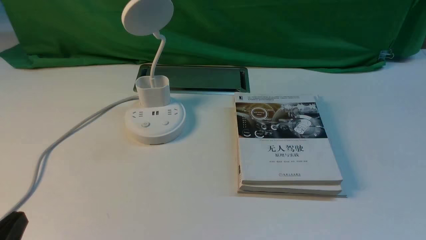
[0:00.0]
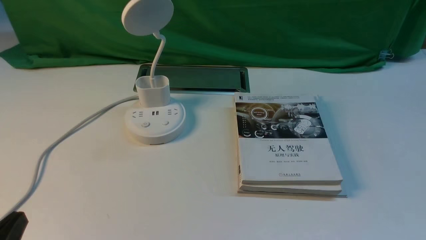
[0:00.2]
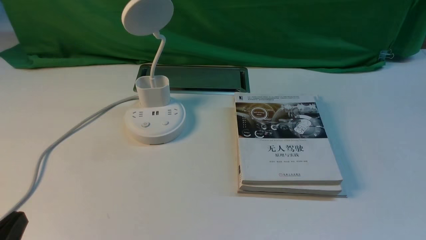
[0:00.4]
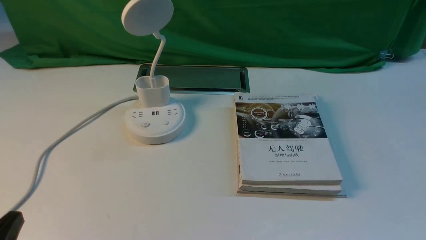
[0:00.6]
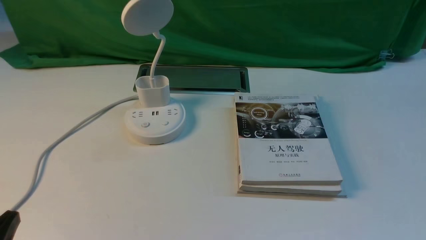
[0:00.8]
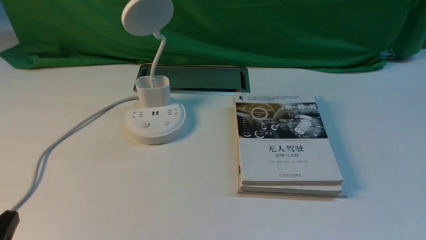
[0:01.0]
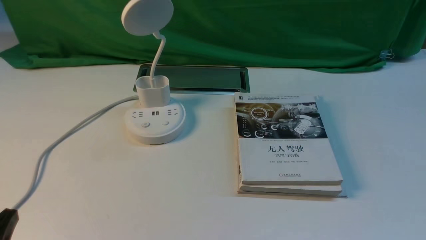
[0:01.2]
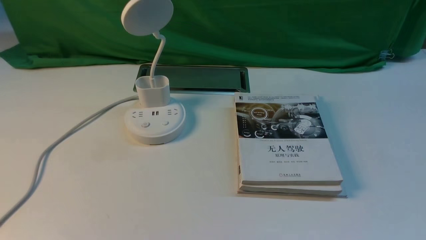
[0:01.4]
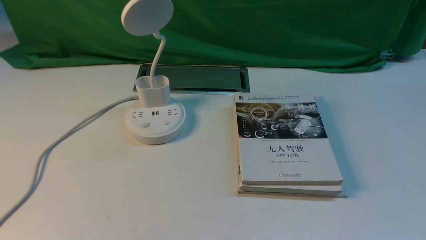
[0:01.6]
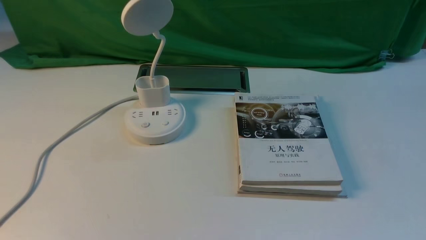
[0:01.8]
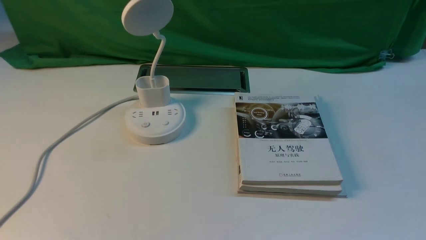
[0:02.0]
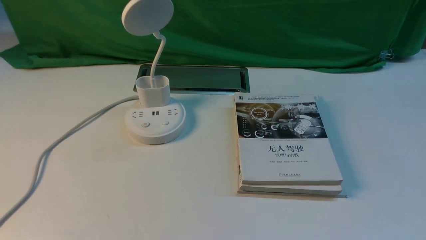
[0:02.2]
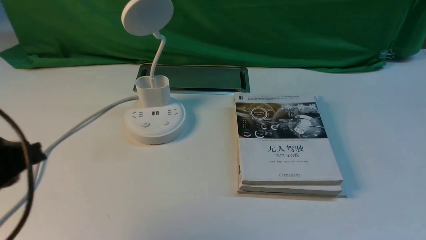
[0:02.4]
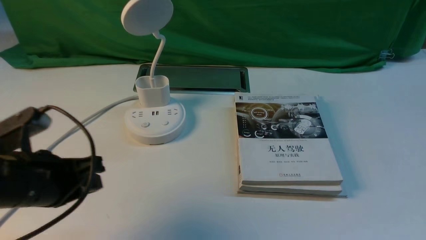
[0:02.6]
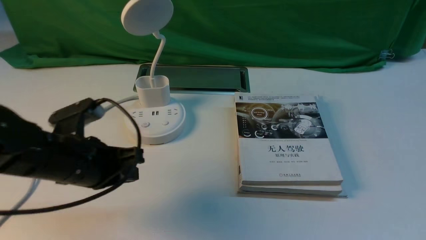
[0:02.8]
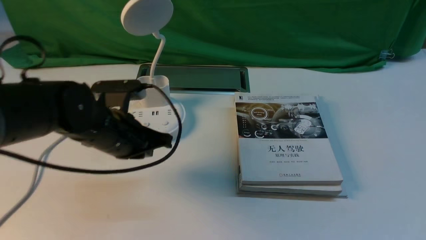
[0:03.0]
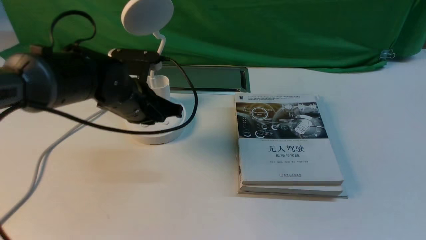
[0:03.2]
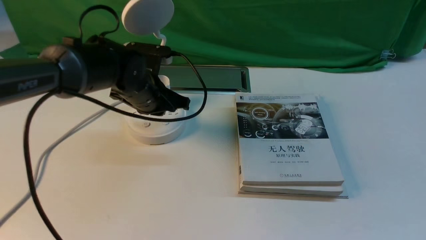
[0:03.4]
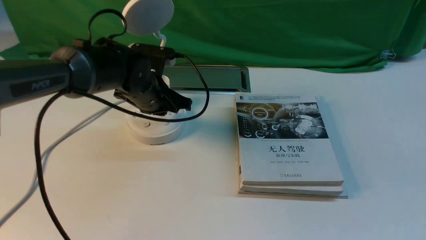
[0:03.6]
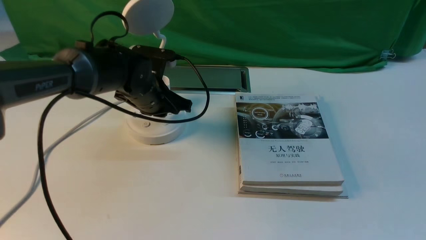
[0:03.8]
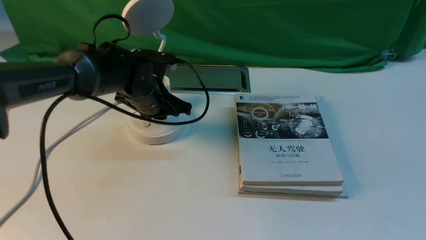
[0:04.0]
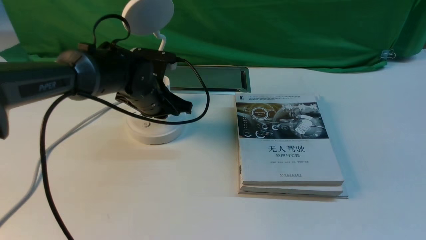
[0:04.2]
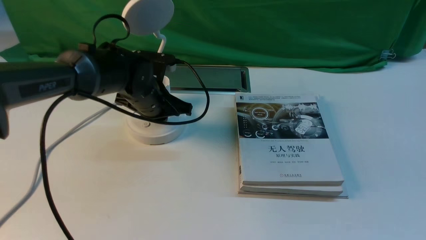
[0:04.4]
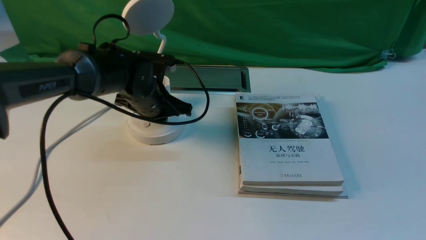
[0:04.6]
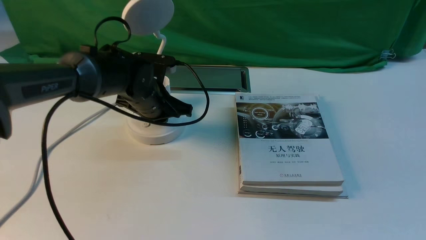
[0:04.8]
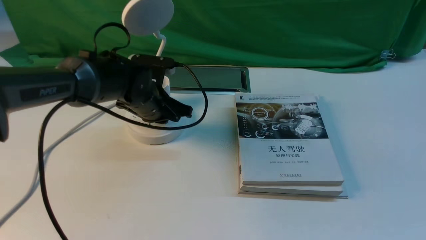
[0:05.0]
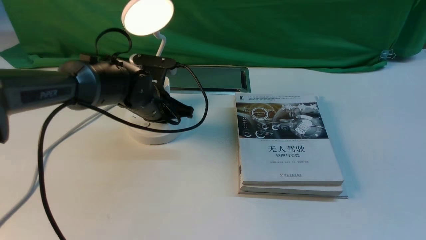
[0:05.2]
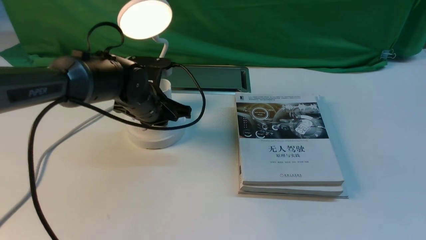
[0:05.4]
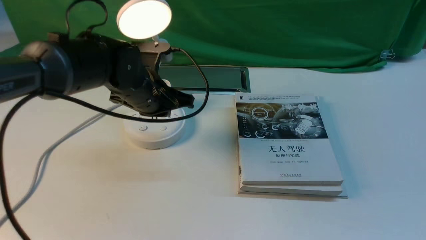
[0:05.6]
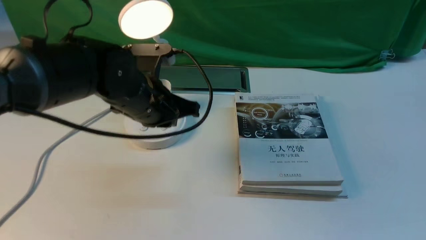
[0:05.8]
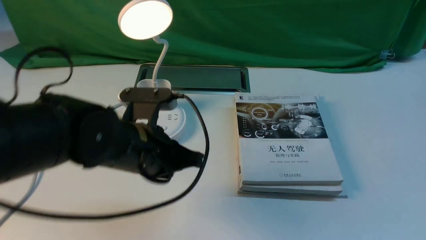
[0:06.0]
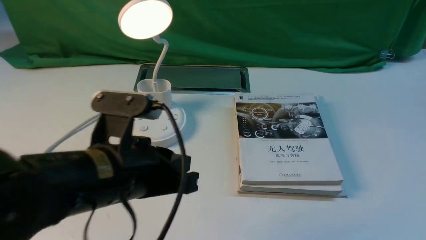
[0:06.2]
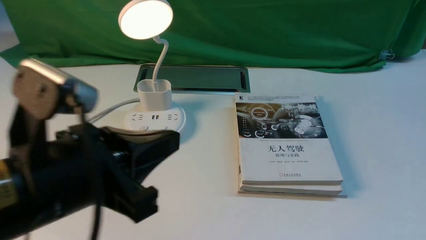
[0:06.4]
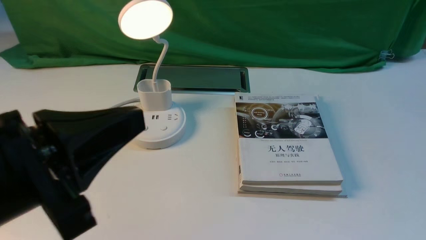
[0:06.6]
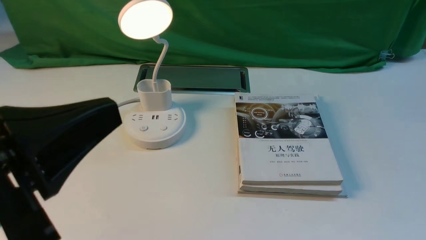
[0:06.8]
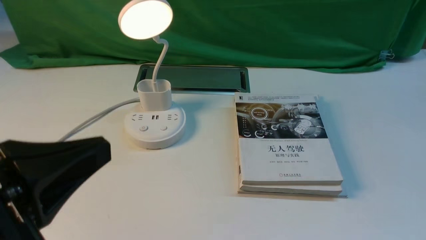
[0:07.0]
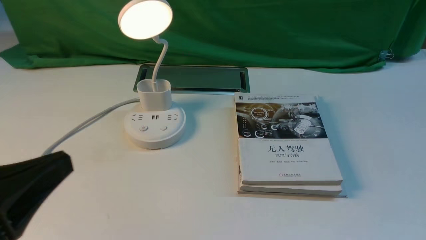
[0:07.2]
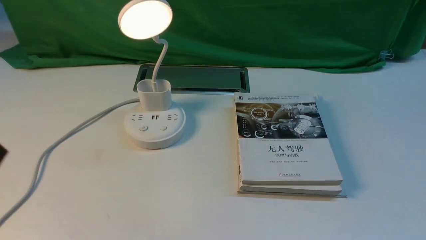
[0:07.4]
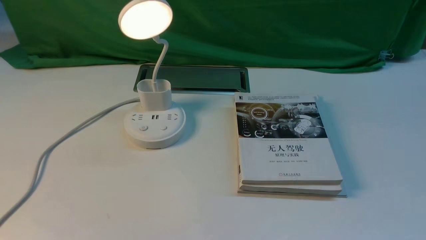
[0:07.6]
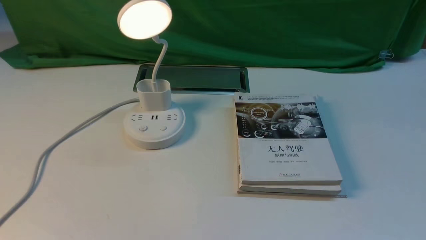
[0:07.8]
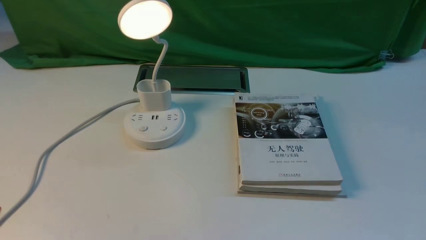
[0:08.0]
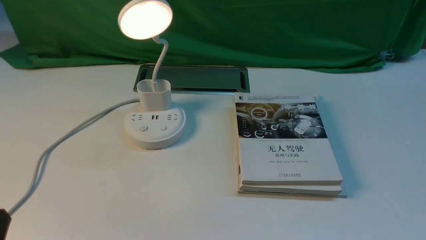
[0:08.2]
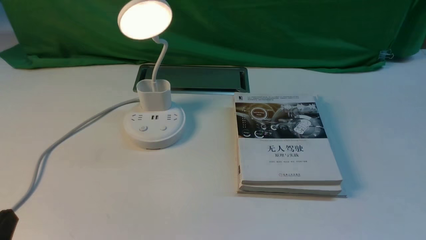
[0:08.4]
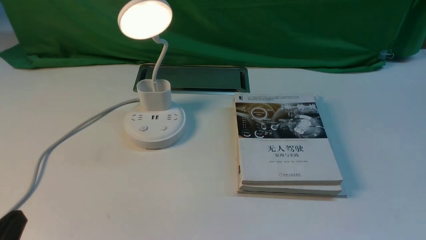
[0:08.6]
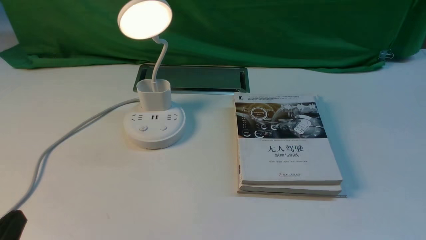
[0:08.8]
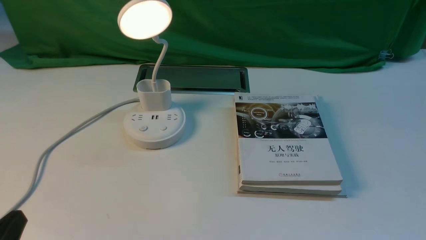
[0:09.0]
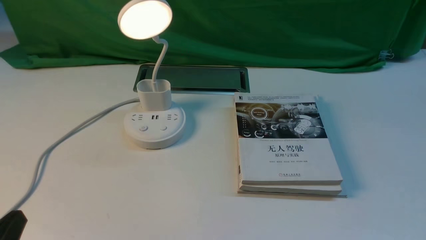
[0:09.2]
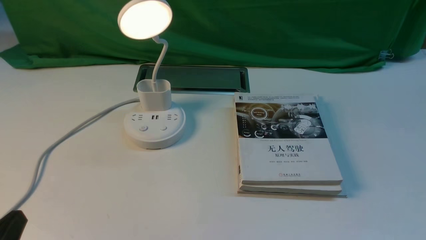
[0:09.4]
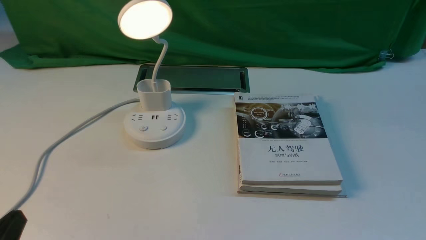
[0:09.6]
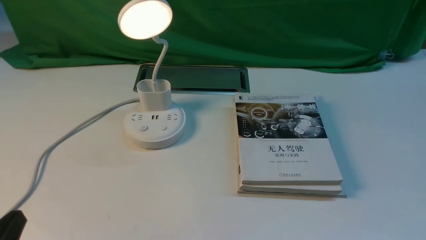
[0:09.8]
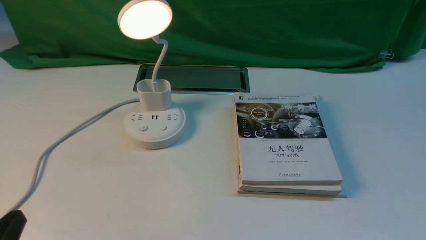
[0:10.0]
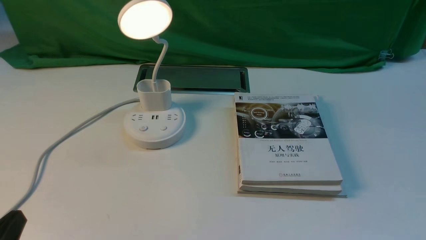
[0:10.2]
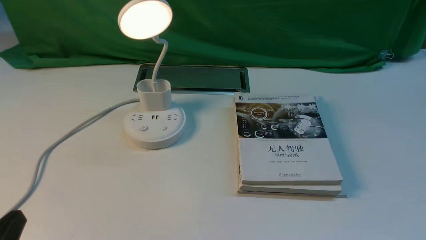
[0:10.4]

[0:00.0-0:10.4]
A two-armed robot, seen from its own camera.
Step, 0:00.0 to 0:05.8: use the left arm to press the button switch on the lamp holder.
0:01.4 to 0:03.0: The left gripper shifts some 30 cm forward and to the right, and closes its fingers.
0:03.0 to 0:04.4: The left gripper heads forward, covering some 10 cm.
0:04.4 to 0:06.0: The left gripper goes some 20 cm backward and upward.
0:06.0 to 0:07.4: The left gripper goes about 25 cm backward and to the left.
0:07.4 to 0:09.0: The left gripper shifts some 10 cm downward.
0:09.0 to 0:10.4: The two grippers keep their place.

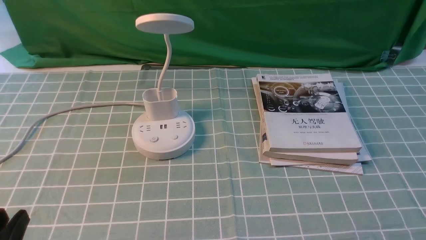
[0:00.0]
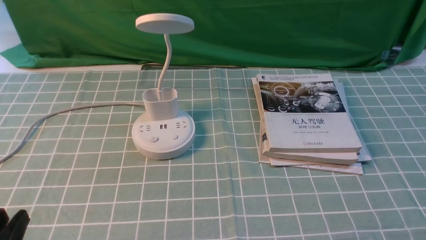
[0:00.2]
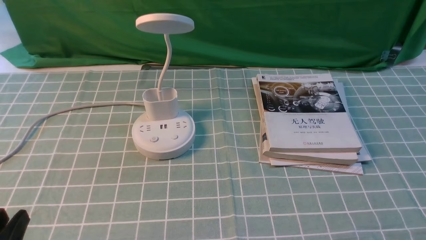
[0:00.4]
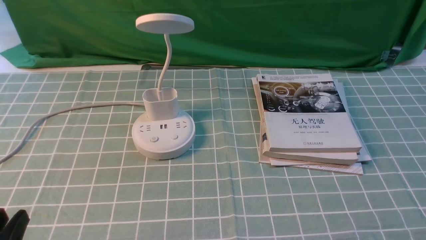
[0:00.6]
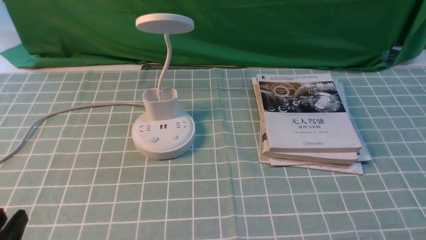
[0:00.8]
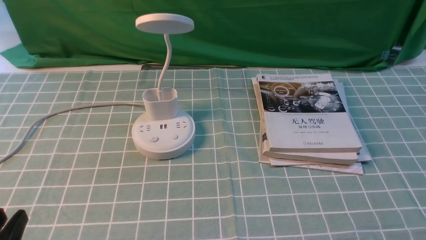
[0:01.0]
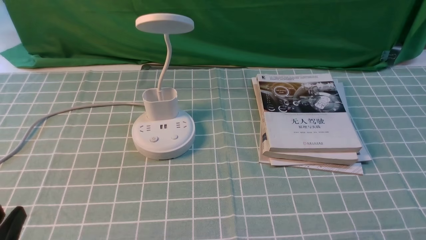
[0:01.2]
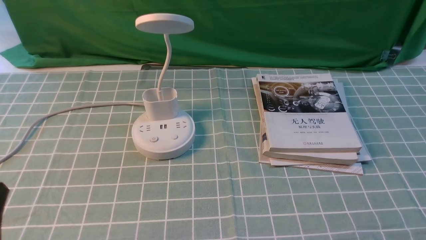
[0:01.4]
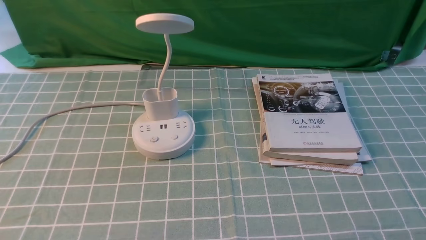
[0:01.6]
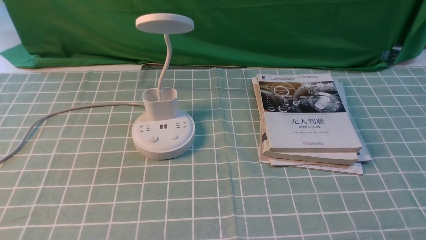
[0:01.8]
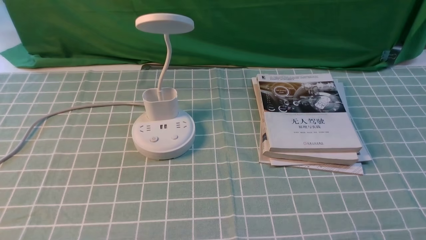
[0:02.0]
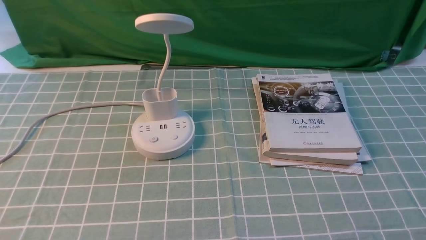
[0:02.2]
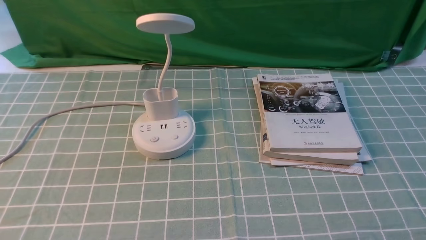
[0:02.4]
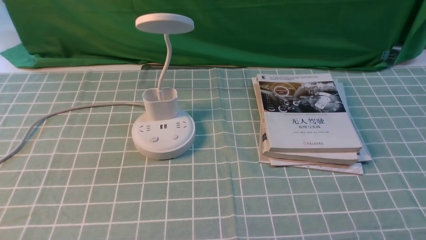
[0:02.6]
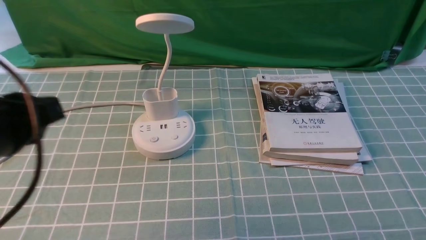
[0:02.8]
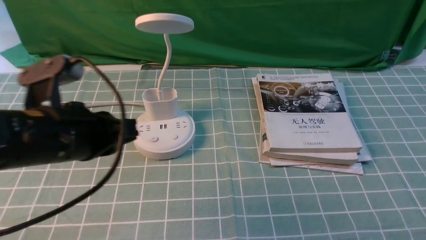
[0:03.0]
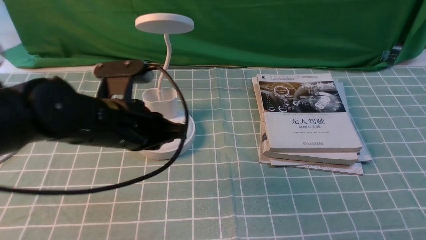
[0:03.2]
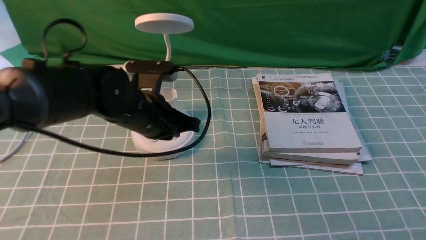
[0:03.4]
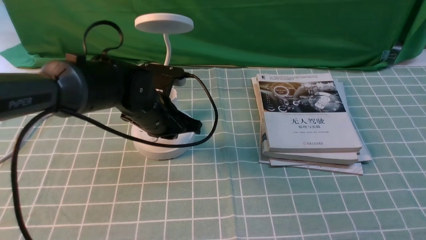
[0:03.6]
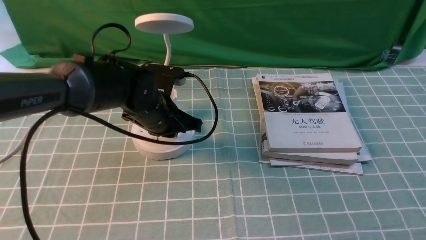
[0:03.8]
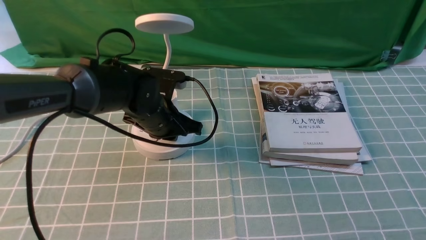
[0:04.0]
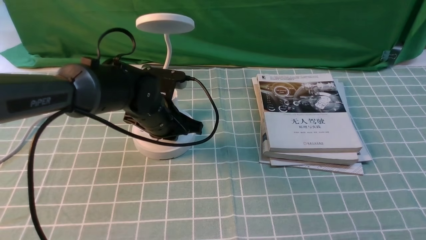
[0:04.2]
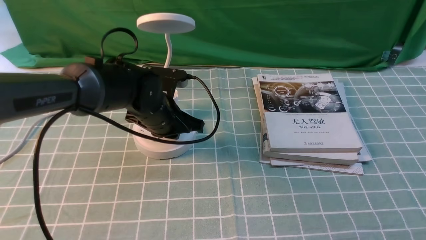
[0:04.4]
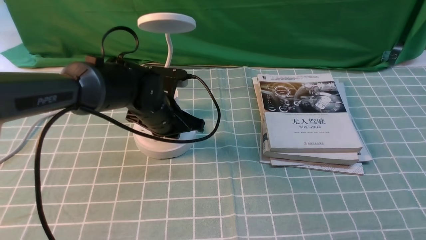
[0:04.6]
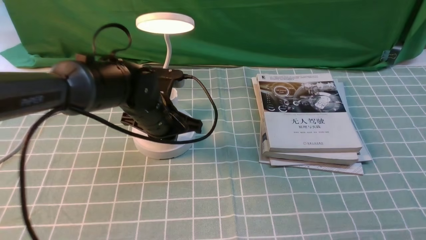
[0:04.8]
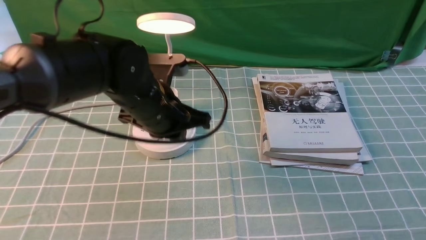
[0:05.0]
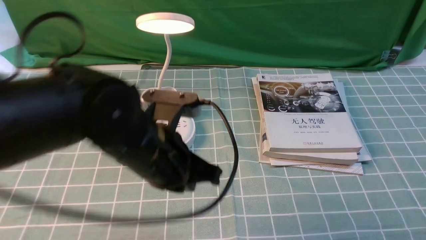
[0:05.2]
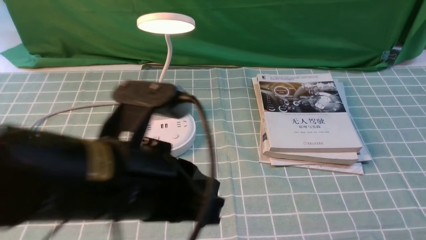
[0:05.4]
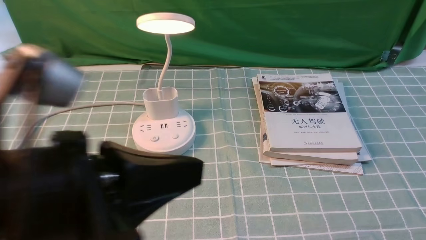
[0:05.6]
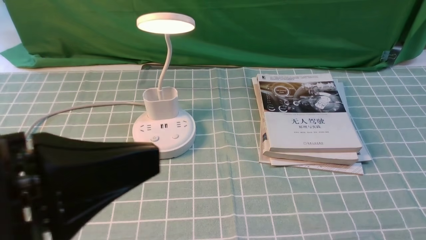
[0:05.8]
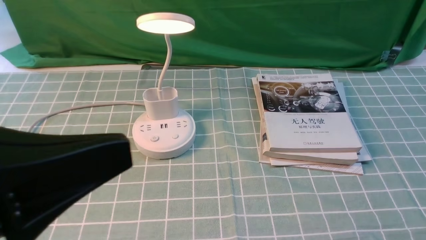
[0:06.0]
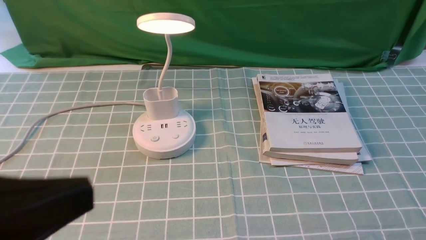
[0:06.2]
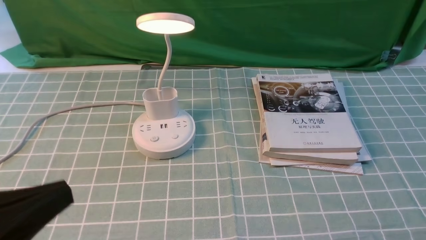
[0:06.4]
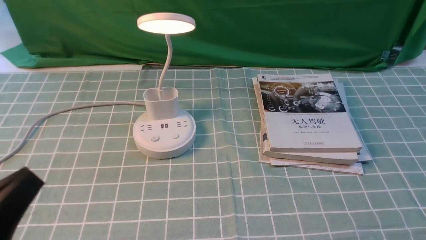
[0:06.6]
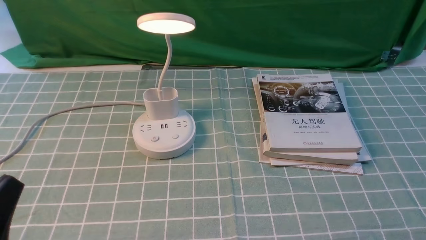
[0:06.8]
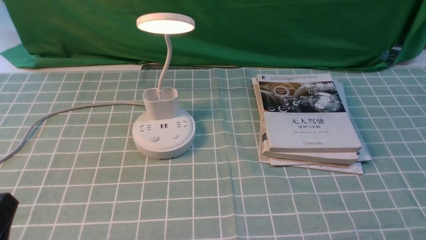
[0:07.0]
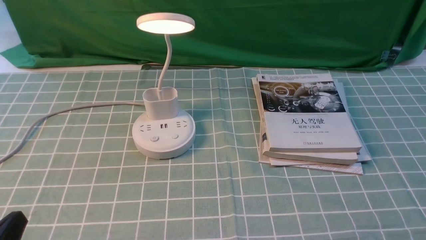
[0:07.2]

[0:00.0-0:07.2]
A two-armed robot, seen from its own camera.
Step, 0:00.0 to 0:05.0: use the left arm to press the button switch on the lamp holder.
0:01.4 to 0:02.8: The left gripper heads upward and forward, covering some 15 cm, and closes its fingers.
0:02.8 to 0:04.4: The left gripper moves forward, downward and to the right, approximately 30 cm.
0:04.4 to 0:05.8: The left gripper travels backward and upward by roughly 35 cm.
0:05.8 to 0:07.2: The left gripper goes approximately 20 cm downward and to the left.
